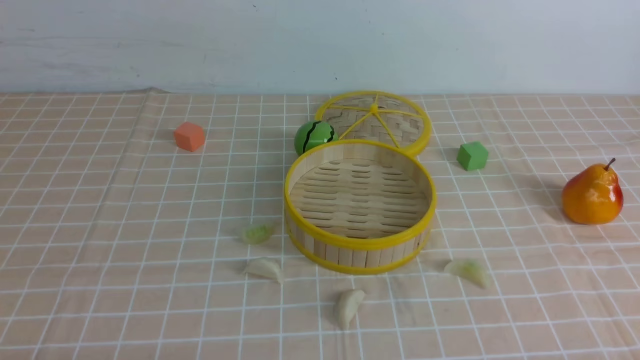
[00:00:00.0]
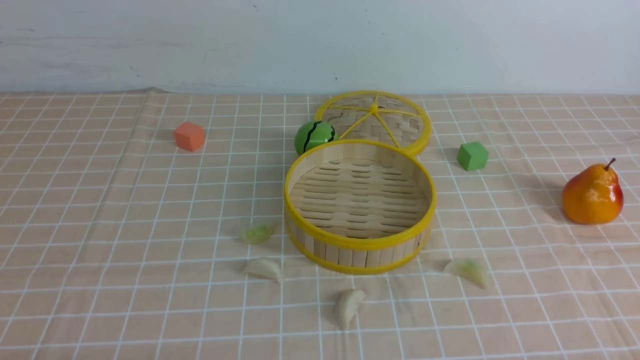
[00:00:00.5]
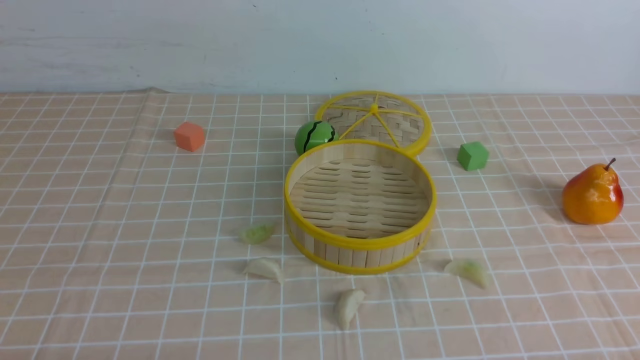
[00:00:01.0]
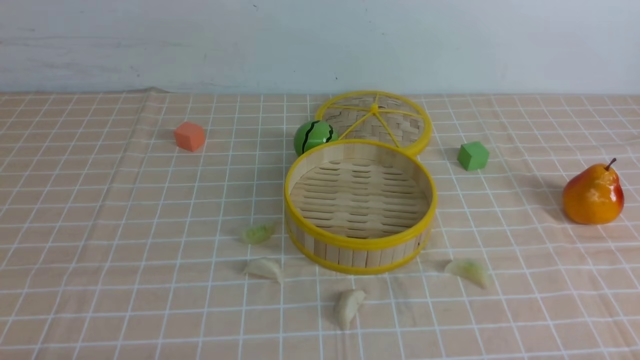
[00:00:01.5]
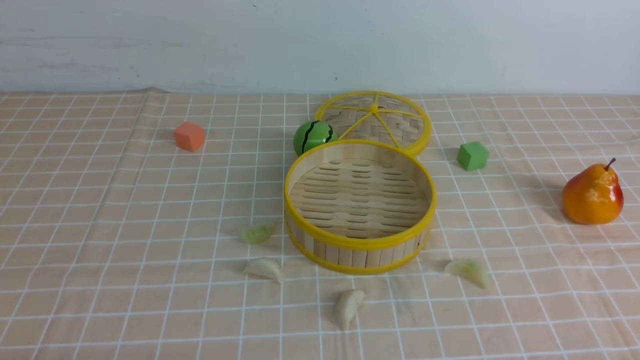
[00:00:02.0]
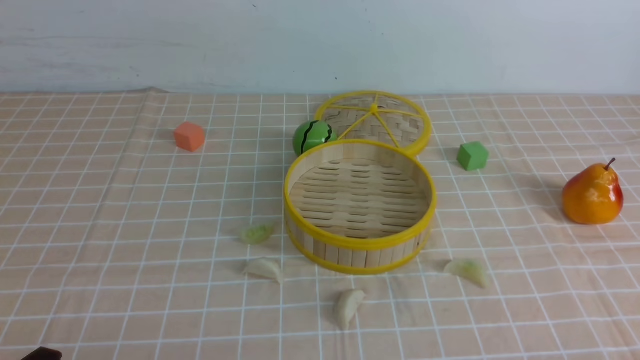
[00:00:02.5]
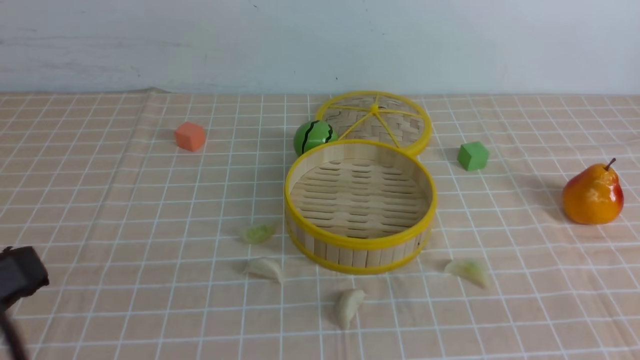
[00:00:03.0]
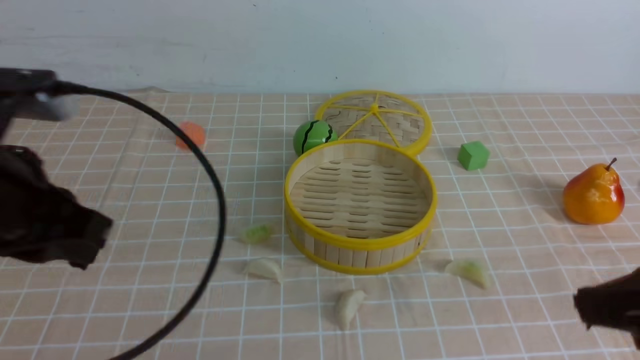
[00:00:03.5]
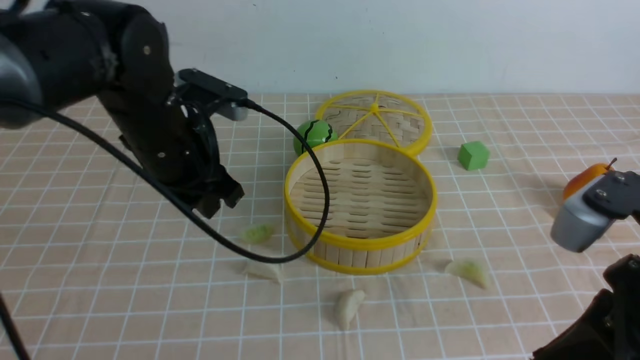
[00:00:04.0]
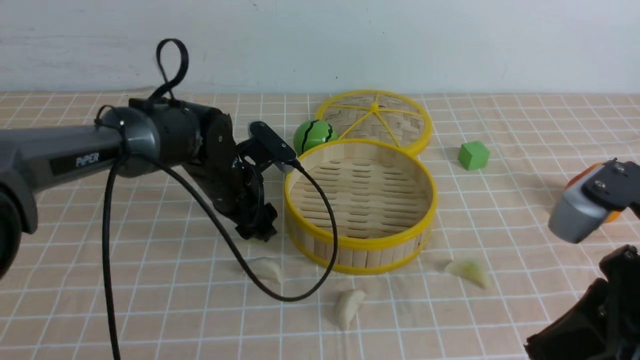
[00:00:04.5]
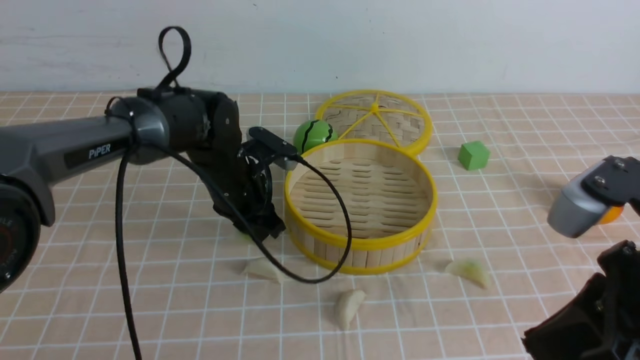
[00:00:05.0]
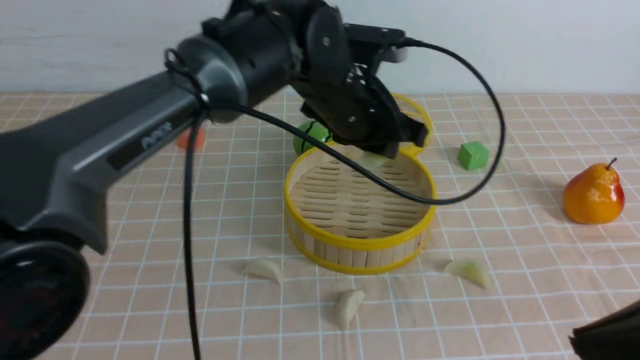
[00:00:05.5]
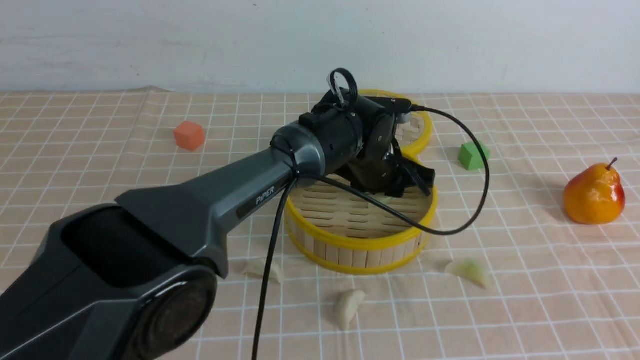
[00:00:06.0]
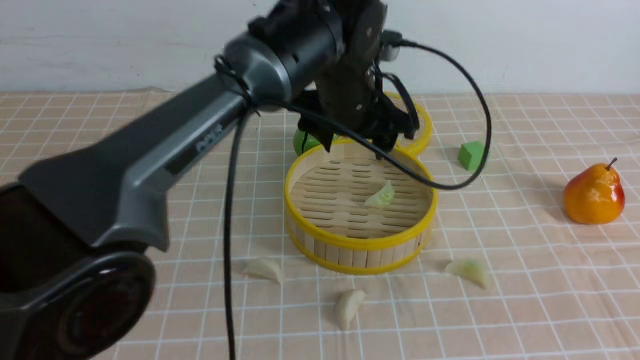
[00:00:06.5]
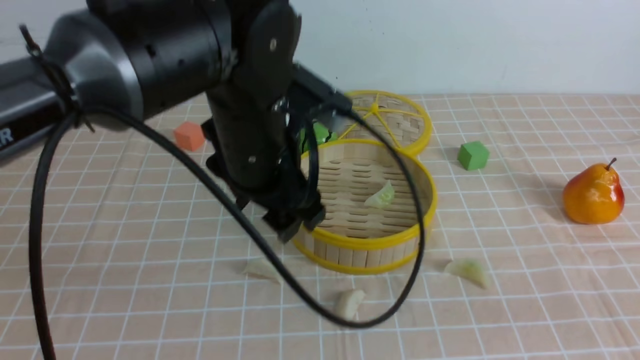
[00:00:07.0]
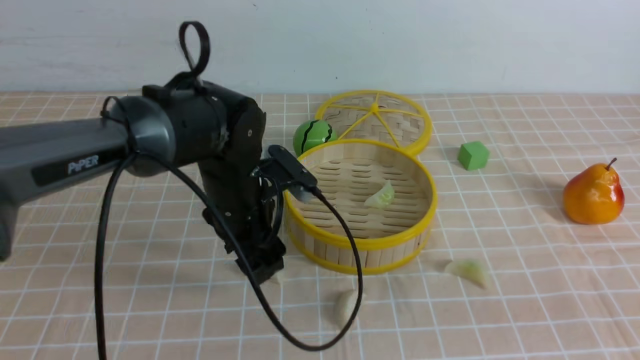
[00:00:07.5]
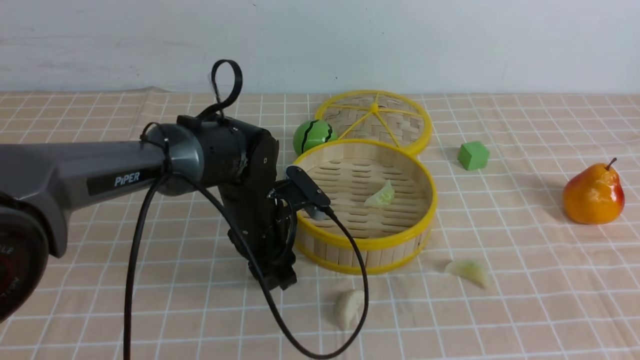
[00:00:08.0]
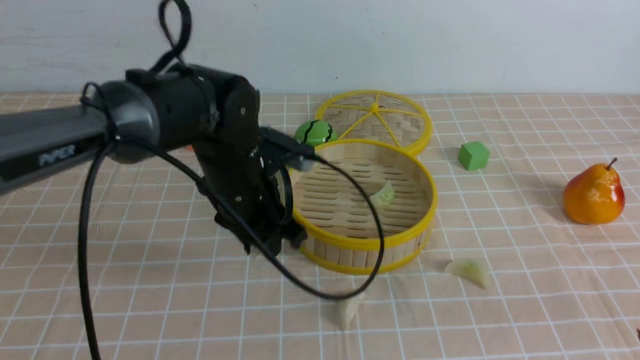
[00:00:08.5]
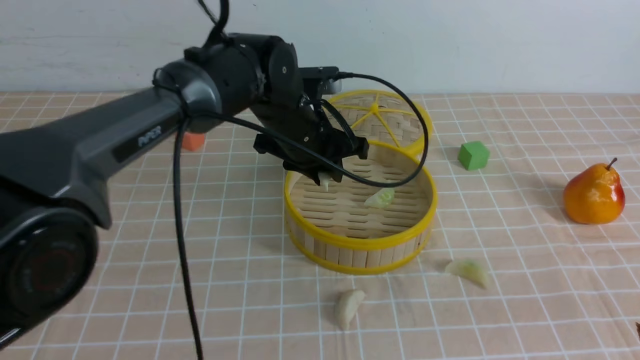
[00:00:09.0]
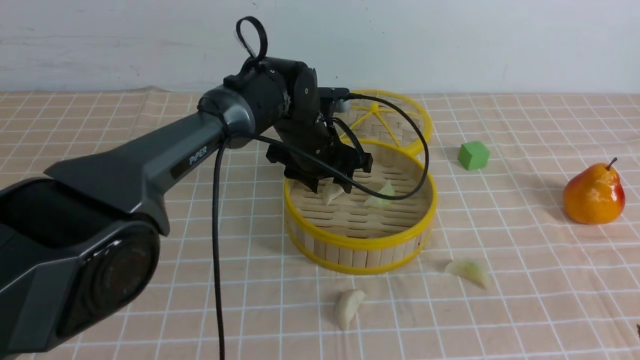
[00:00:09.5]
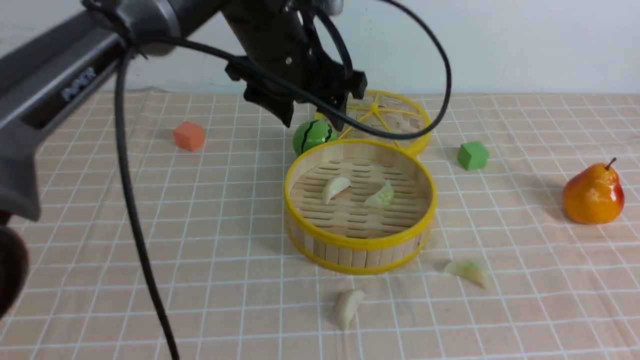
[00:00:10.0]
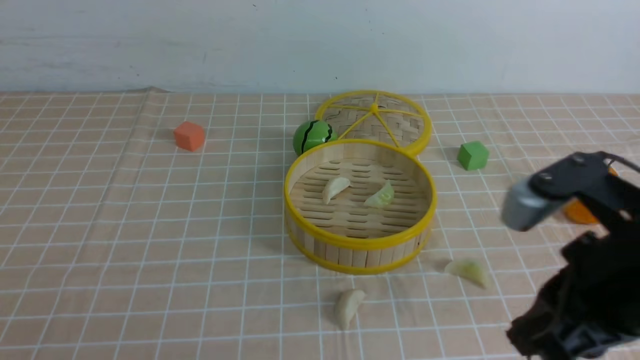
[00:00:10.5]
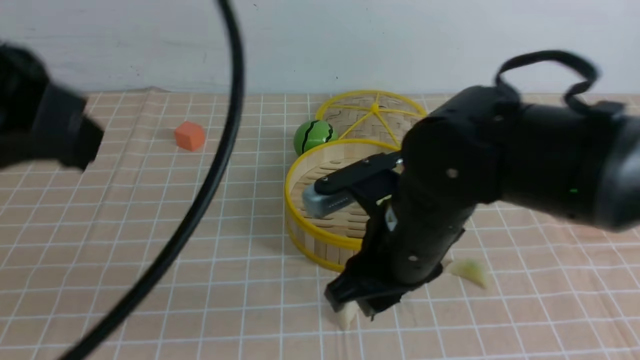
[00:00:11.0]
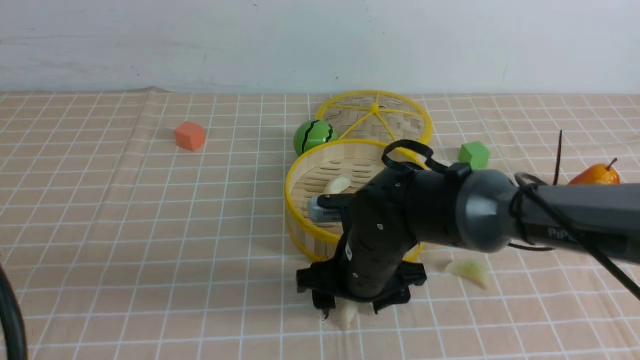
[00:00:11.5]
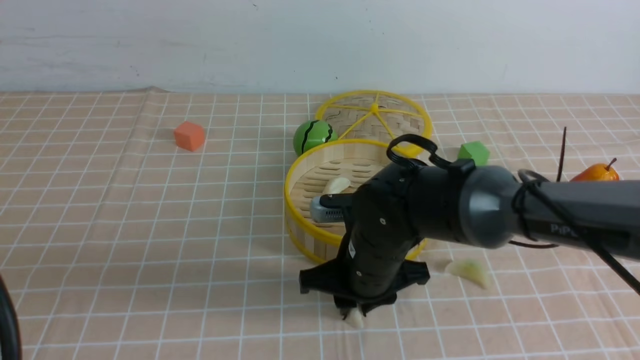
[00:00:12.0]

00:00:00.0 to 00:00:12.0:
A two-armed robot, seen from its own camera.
Task of the whole recording: put the dumplings into the steamer on the table with the brown tablecloth.
Step, 00:00:00.0 to 00:00:04.5: use the left arm to grab a dumpling.
Step, 00:00:05.0 to 00:00:06.0: use the left arm to put the dumpling into the steamer.
Step, 00:00:06.5 to 00:00:08.0: use the left arm to grab a dumpling.
Step, 00:00:08.5 to 00:00:09.5: use the left arm to put the dumpling into the steamer.
Step, 00:00:10.0 to 00:00:12.0: use the right arm to grab a dumpling.
00:00:02.0 to 00:00:04.0: The left gripper heads forward and to the right, covering some 30 cm, and closes, then opens again; the right gripper travels upward, forward and to the left by approximately 20 cm, and closes its fingers.
00:00:04.0 to 00:00:06.0: The left gripper goes roughly 20 cm to the right and forward. Meanwhile the right gripper shifts about 10 cm backward and upward.
00:00:06.0 to 00:00:08.0: The left gripper moves to the left and backward, approximately 15 cm, and reaches roughly 10 cm upward, then returns.
00:00:08.0 to 00:00:10.0: The left gripper is displaced upward by roughly 20 cm.
00:00:10.0 to 00:00:12.0: The right gripper is displaced forward, to the left and downward by some 35 cm, and opens and closes again, while the left gripper goes about 35 cm backward and to the left, and closes up.

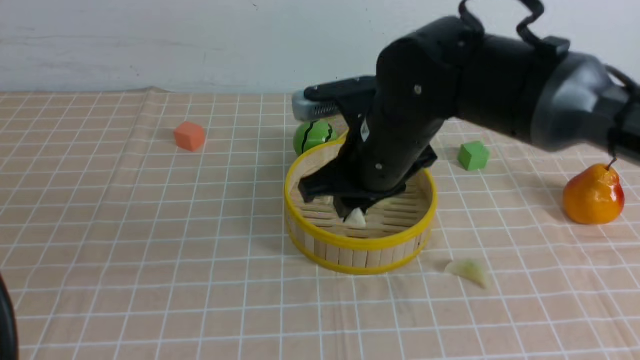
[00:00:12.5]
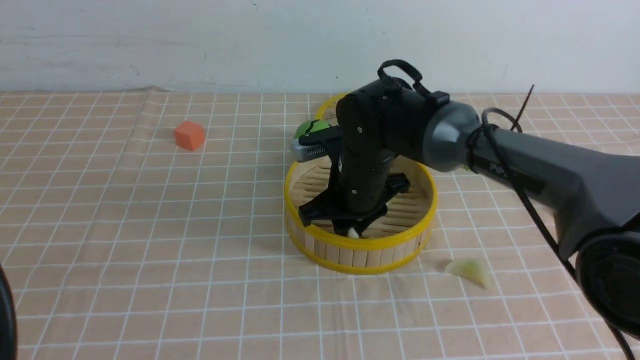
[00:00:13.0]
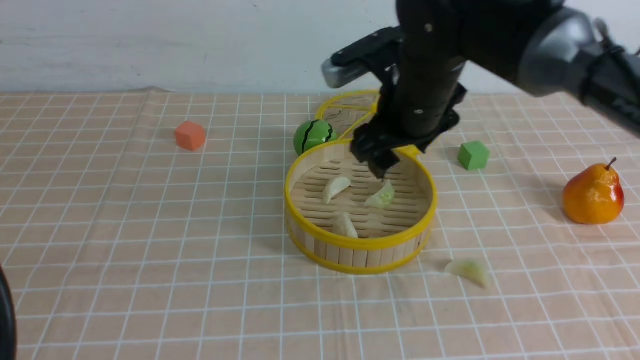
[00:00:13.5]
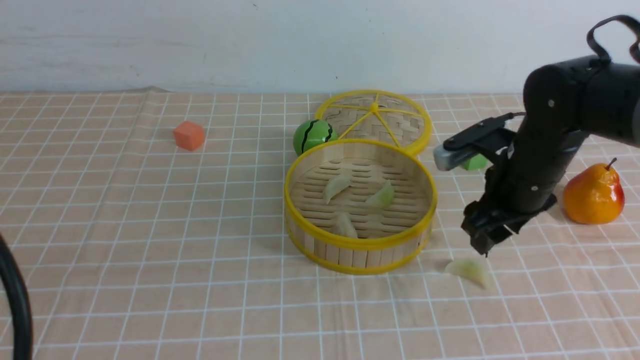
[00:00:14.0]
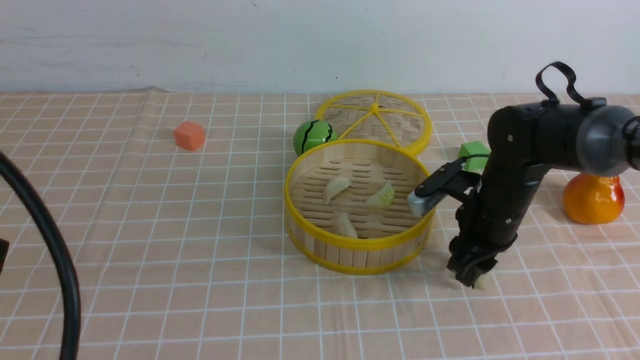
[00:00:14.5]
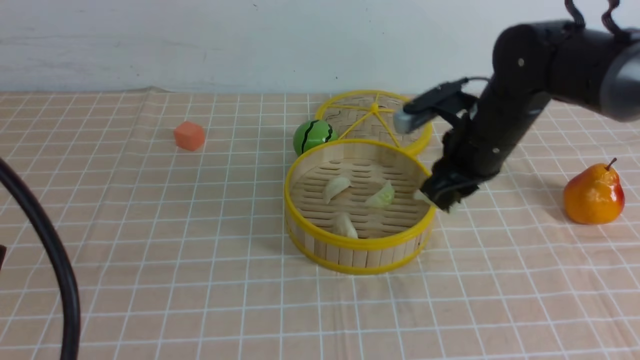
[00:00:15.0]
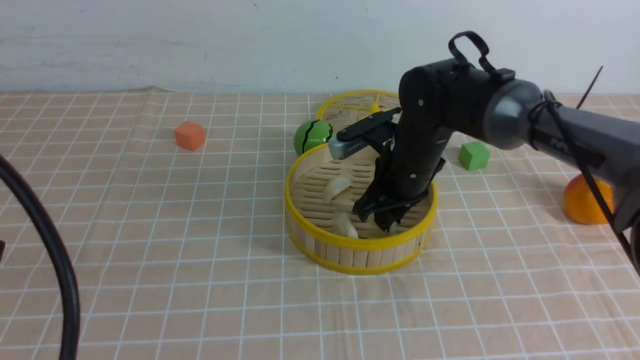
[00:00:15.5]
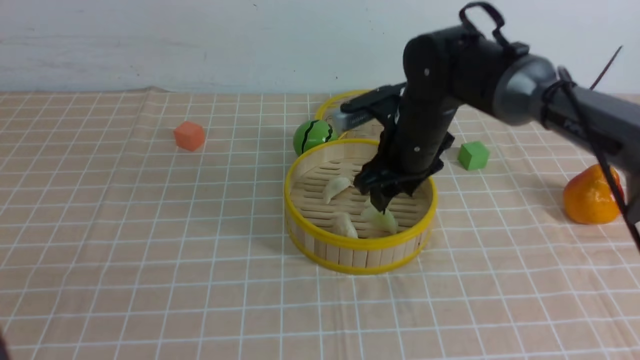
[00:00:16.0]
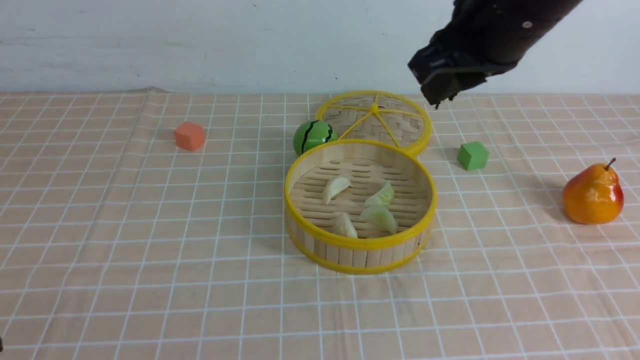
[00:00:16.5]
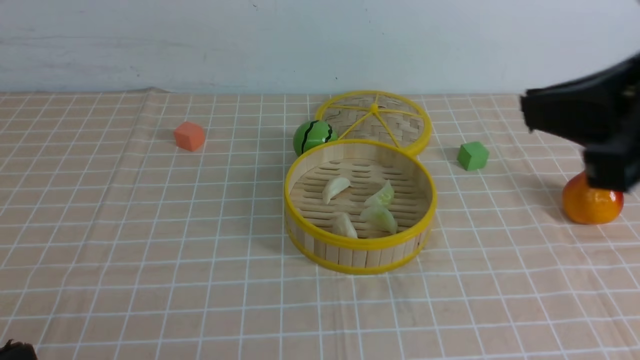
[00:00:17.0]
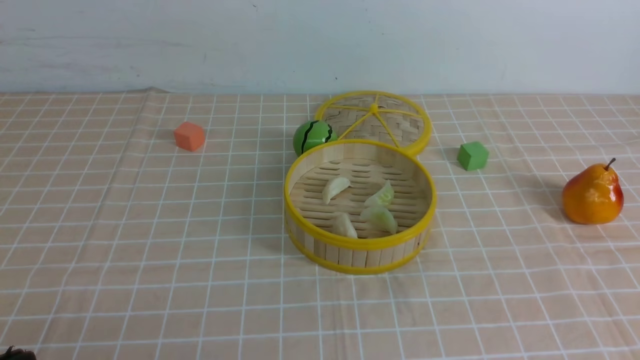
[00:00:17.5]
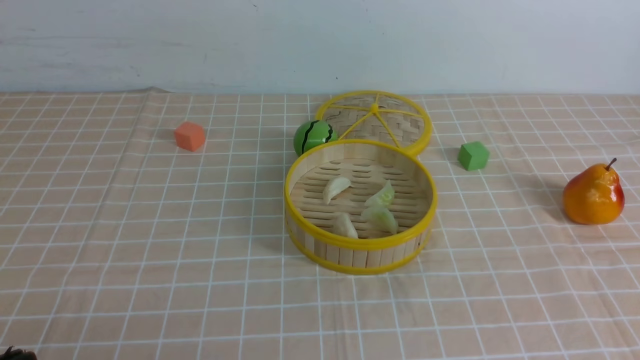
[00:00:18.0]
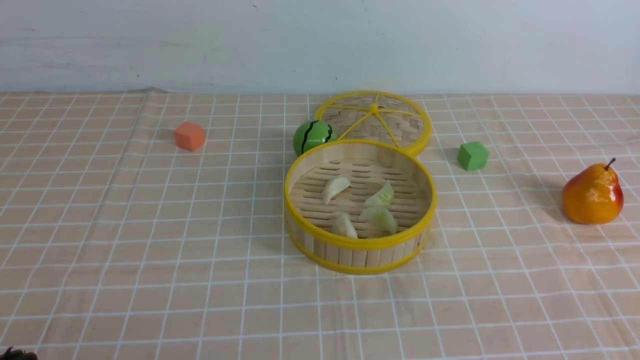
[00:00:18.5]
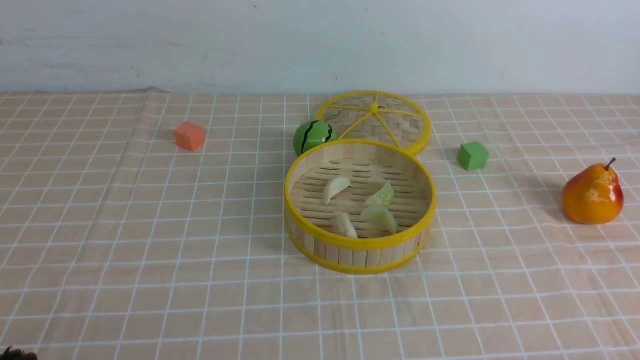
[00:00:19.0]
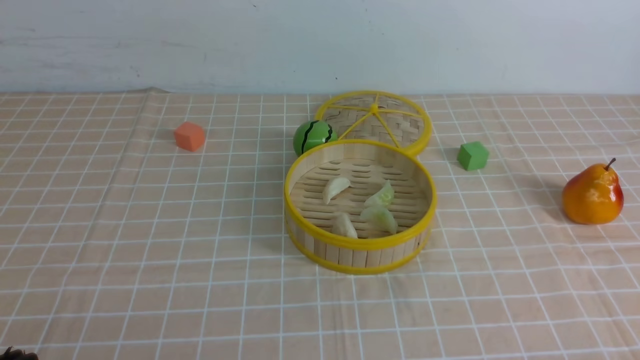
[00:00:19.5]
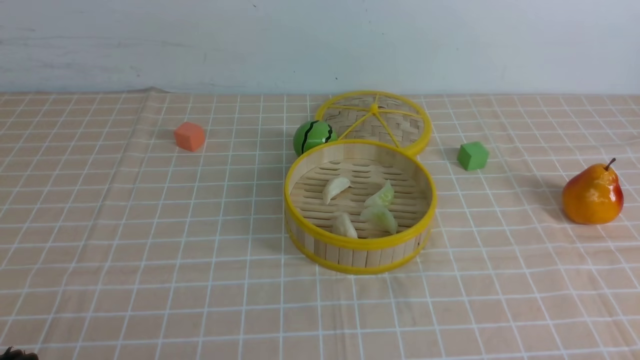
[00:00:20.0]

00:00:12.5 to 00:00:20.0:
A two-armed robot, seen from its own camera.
Task of the whole recording: put the dumplings into the steamer on the table with the brown tablecloth.
Step, 00:00:12.5 to 00:00:13.0: use the right arm to put the dumpling into the steamer.
Step, 00:00:13.5 to 00:00:14.5: use the right arm to grab a dumpling.
Step, 00:00:15.0 to 00:00:15.5: use the right arm to put the dumpling into the steamer.
00:00:12.5 to 00:00:14.5: The right gripper travels to the right and downward by about 15 cm, and opens, then closes once more.
00:00:14.5 to 00:00:16.5: The left gripper travels downward and backward by approximately 10 cm, while the right gripper heads upward, covering some 25 cm.
00:00:16.5 to 00:00:18.0: The right gripper travels backward and to the right by roughly 25 cm.
